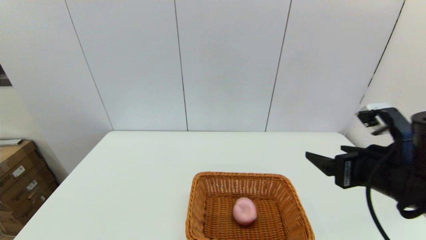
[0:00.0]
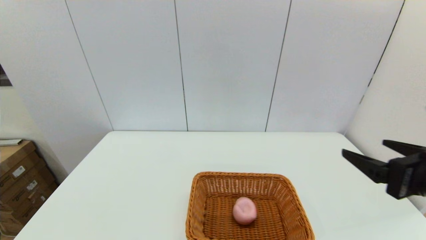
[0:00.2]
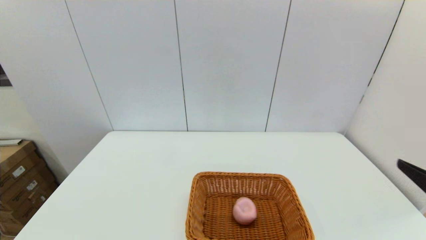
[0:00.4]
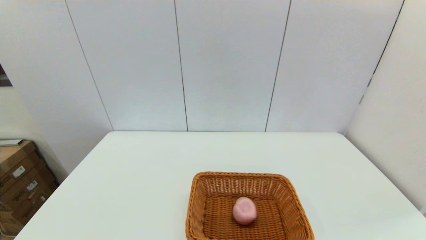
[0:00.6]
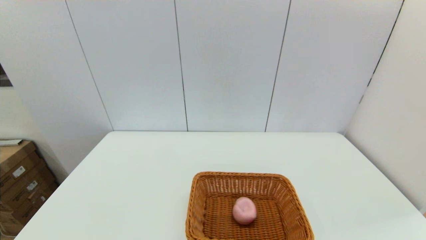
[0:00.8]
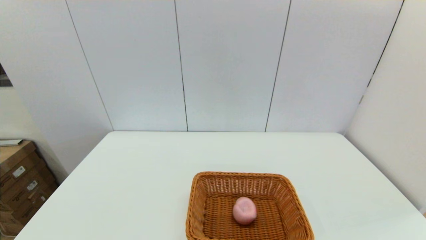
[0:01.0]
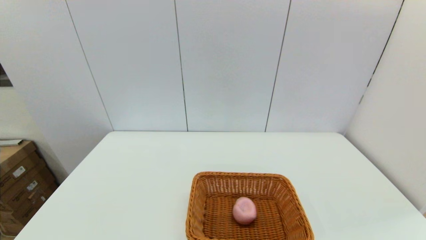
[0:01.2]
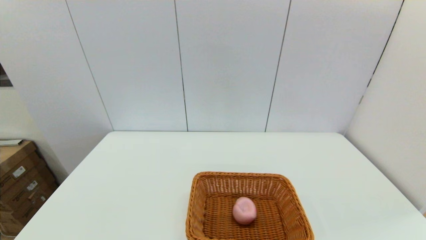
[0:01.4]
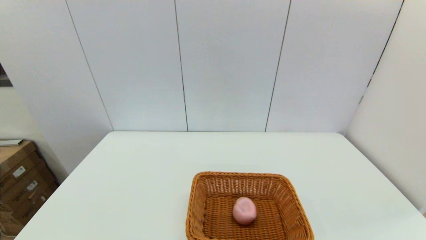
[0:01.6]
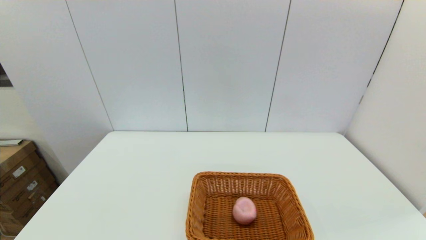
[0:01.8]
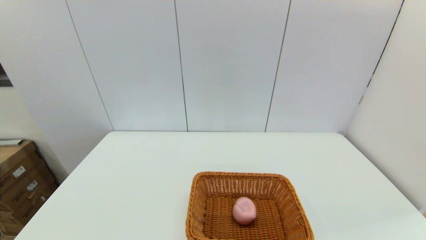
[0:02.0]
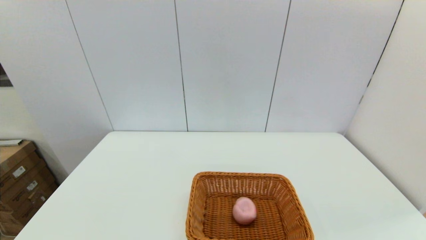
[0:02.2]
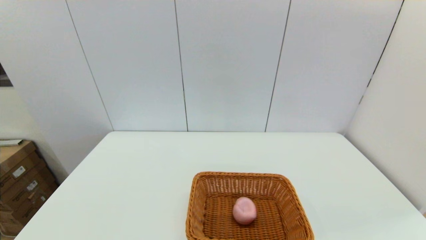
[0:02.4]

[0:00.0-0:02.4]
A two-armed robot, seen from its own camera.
0:00.0 to 0:01.2: The right gripper goes some 20 cm backward and to the right.
